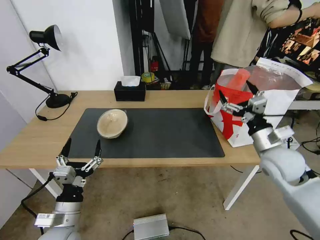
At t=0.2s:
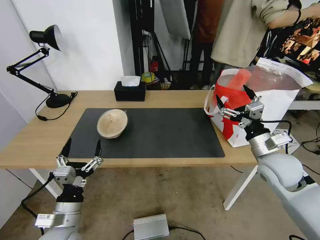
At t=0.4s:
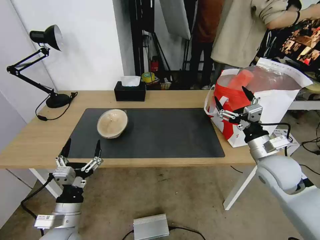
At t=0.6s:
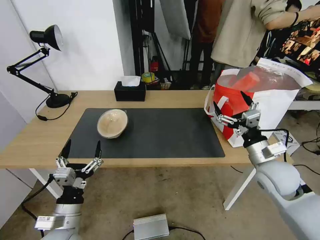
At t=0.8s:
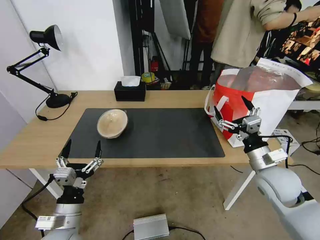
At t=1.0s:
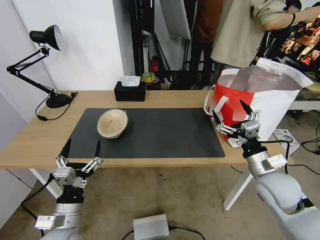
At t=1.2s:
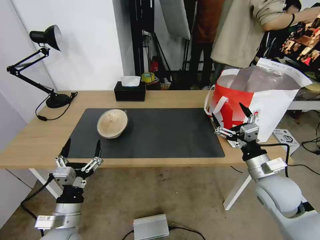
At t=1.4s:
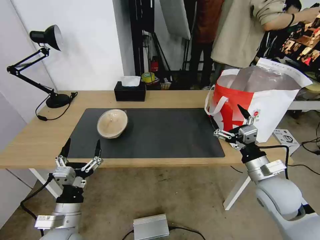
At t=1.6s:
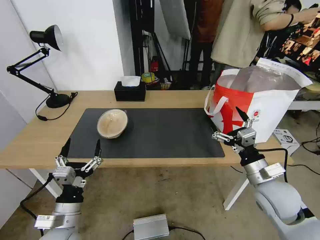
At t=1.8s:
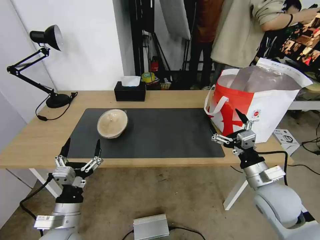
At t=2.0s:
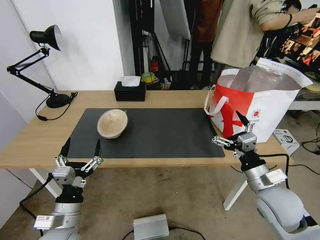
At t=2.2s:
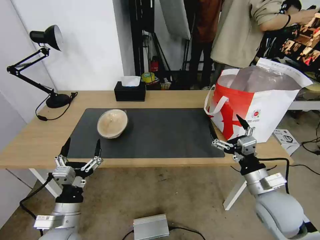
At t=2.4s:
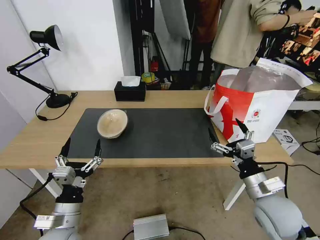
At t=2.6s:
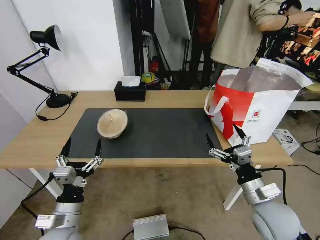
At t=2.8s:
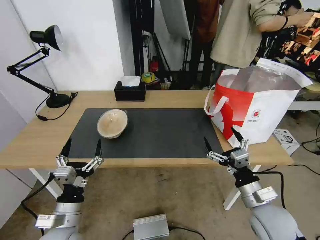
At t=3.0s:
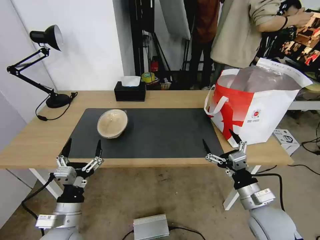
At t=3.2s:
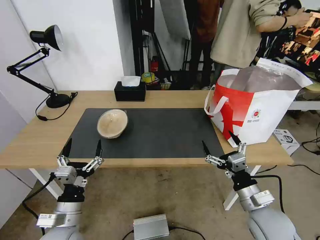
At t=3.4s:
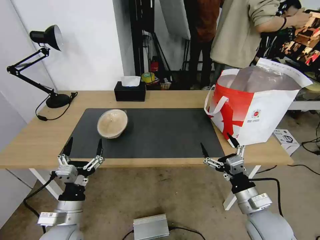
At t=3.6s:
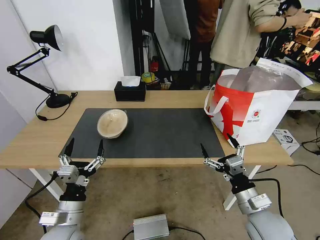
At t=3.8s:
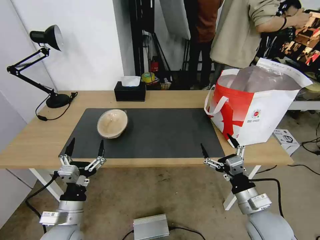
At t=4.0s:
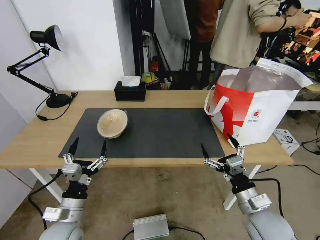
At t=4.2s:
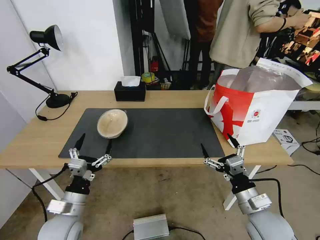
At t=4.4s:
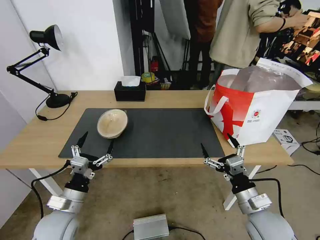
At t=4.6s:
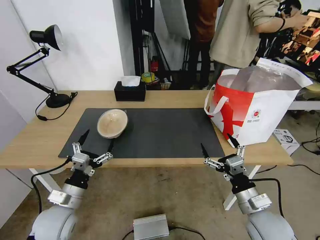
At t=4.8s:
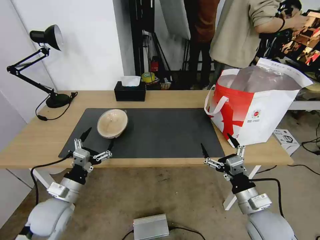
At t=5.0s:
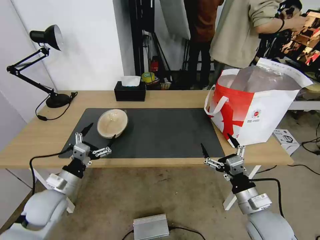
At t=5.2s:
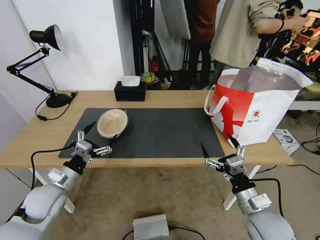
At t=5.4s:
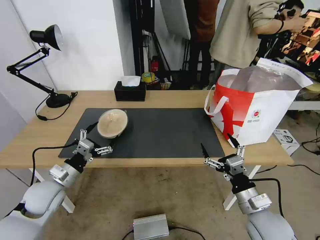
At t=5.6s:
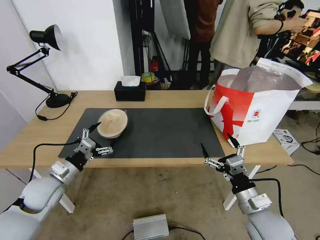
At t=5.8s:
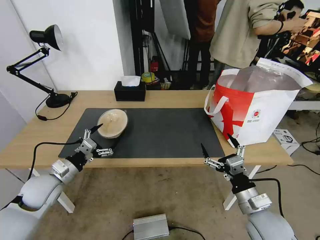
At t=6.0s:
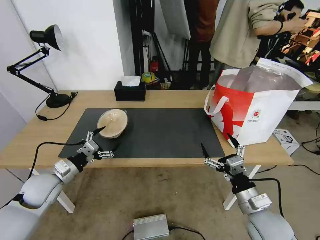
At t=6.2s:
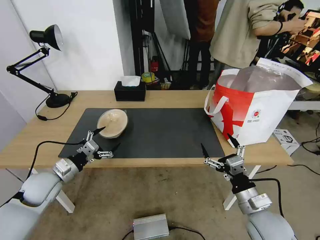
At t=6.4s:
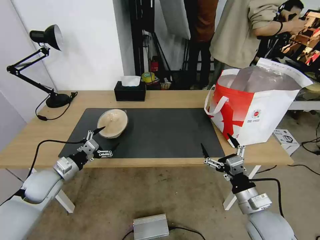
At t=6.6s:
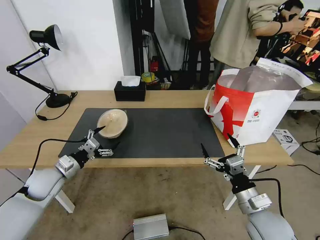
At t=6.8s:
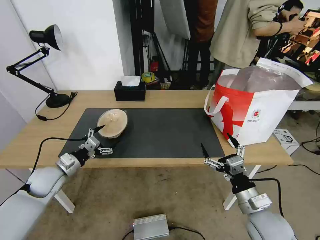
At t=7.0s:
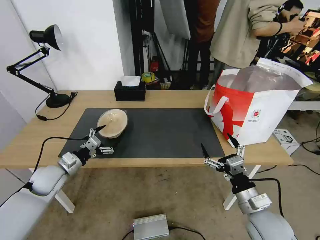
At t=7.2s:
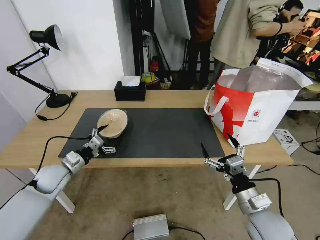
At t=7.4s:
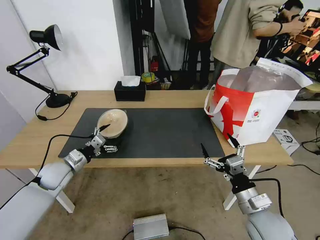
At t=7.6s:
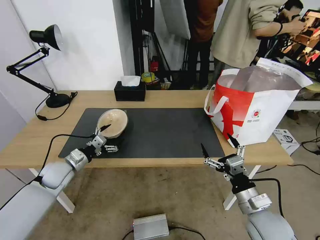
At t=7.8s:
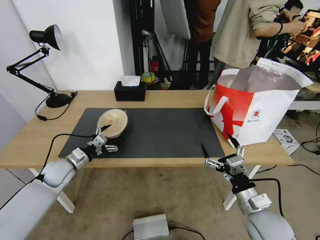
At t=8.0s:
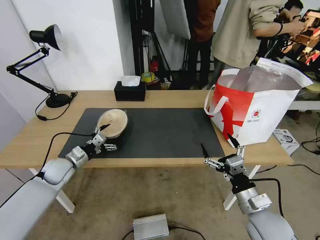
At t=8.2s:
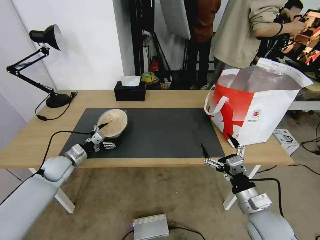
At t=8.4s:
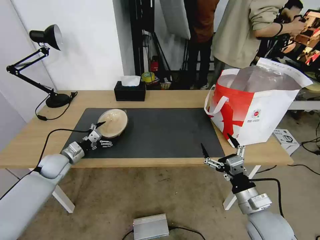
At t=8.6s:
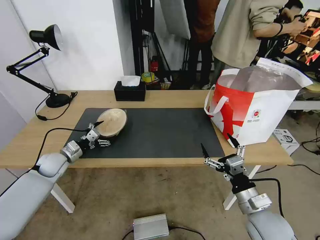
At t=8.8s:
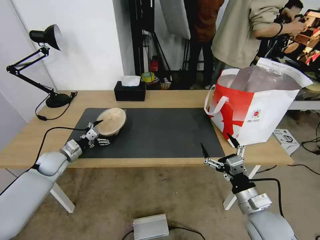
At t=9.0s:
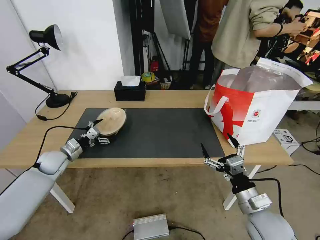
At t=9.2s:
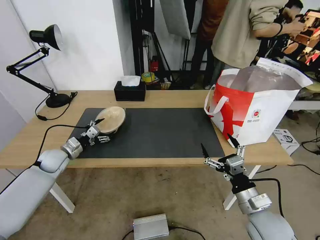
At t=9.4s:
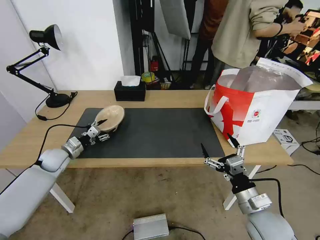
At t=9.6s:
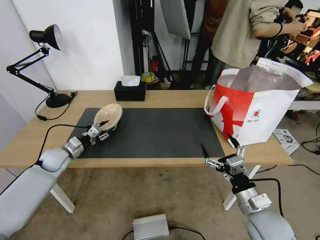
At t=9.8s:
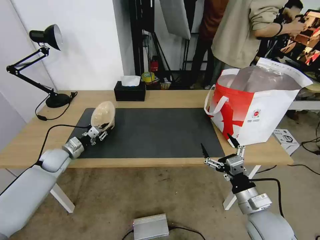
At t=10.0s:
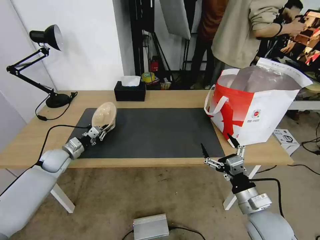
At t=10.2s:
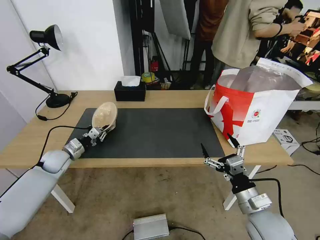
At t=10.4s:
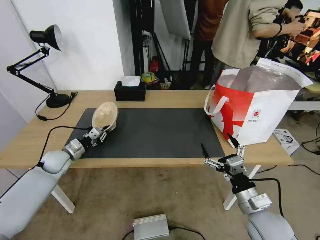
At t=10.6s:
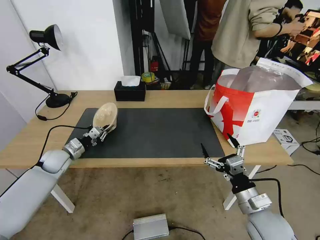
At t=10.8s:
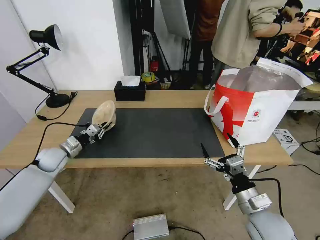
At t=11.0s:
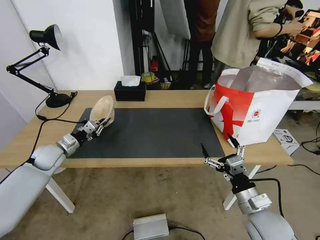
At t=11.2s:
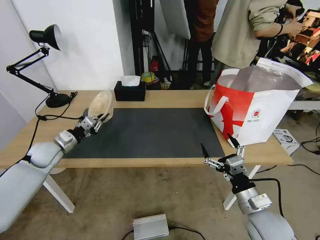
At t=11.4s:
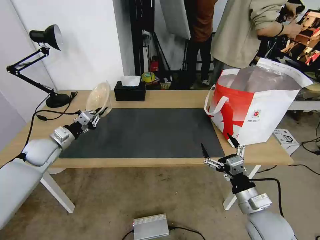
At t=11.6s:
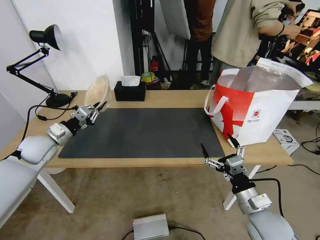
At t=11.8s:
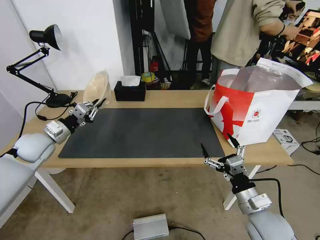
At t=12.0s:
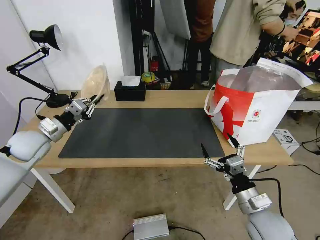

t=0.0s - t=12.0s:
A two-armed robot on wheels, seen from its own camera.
Task of the whole recording: Pick up the trash from the table and place it into the takeout bag.
t=0.0s - t=1.6s: The right gripper heads backward and downward, covering about 10 cm.
t=1.6s - t=3.0s: The right gripper is displaced backward by approximately 5 cm.
t=3.0s - t=4.4s: The grippers stay close to where they were, moving slightly.
t=4.4s - t=6.0s: The left gripper shifts some 15 cm forward and to the left.
t=6.0s - t=7.6s: The left gripper is displaced forward by some 5 cm.
t=7.6s - t=9.0s: The left gripper is displaced forward by roughly 5 cm.
t=9.0s - t=10.4s: The left gripper closes up.
t=10.4s - t=12.0s: The left gripper heads upward, covering roughly 15 cm.

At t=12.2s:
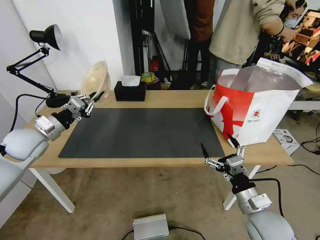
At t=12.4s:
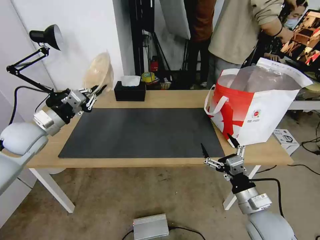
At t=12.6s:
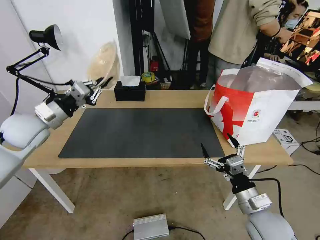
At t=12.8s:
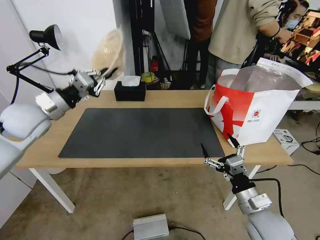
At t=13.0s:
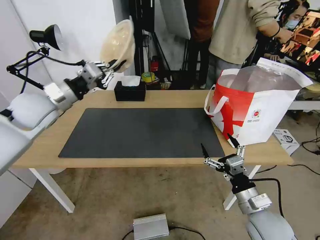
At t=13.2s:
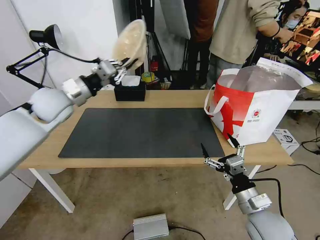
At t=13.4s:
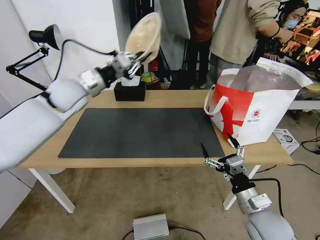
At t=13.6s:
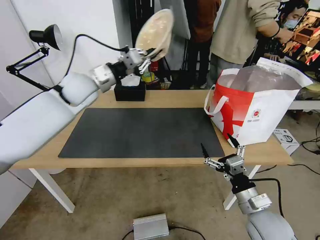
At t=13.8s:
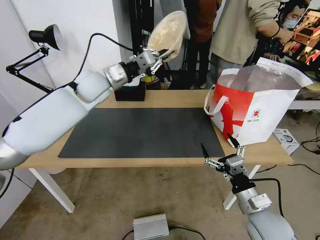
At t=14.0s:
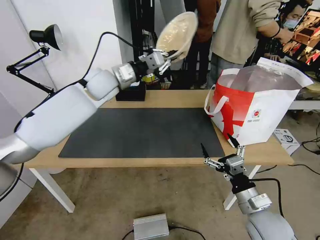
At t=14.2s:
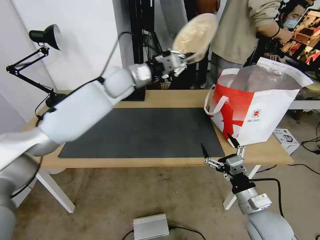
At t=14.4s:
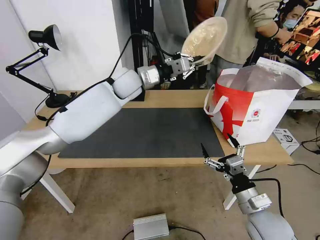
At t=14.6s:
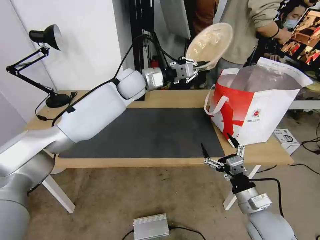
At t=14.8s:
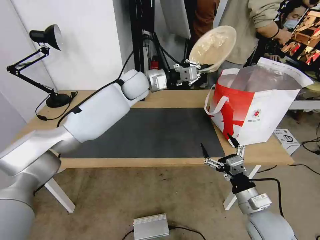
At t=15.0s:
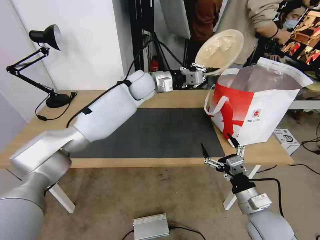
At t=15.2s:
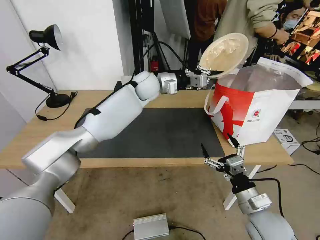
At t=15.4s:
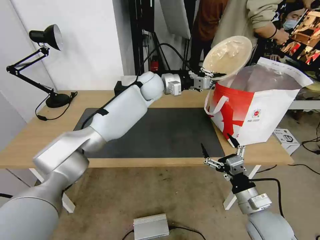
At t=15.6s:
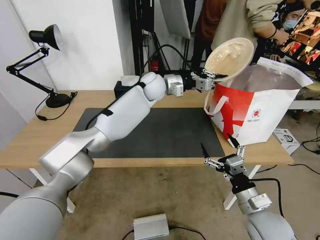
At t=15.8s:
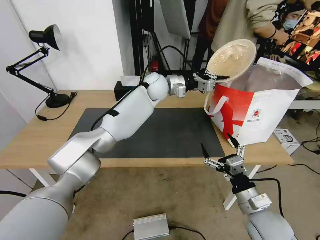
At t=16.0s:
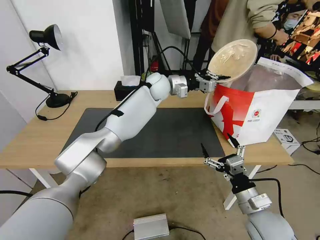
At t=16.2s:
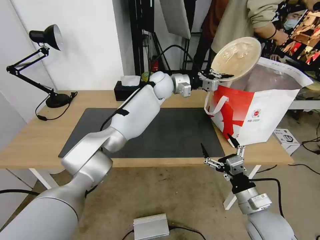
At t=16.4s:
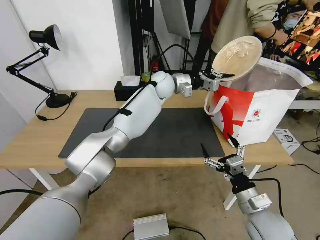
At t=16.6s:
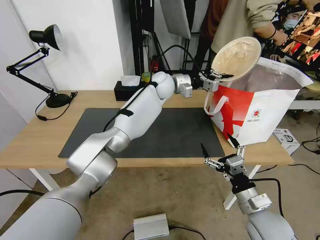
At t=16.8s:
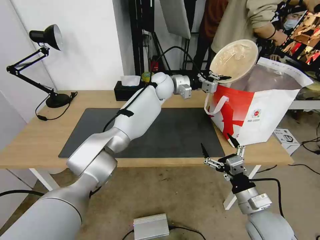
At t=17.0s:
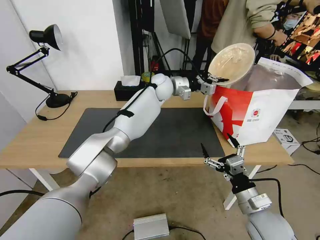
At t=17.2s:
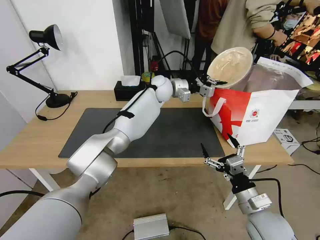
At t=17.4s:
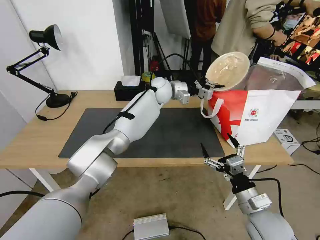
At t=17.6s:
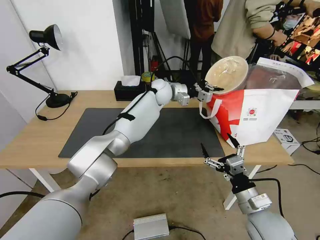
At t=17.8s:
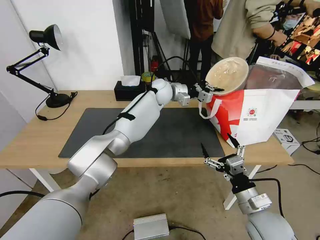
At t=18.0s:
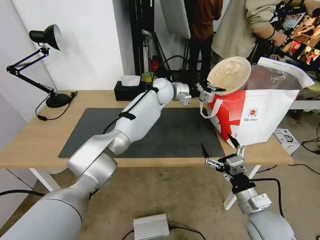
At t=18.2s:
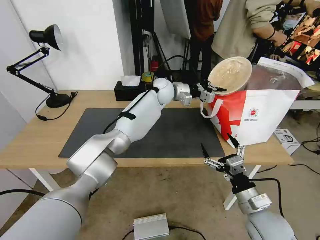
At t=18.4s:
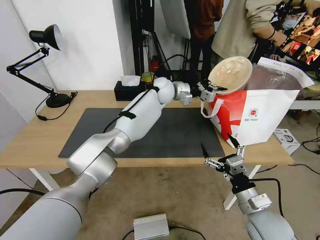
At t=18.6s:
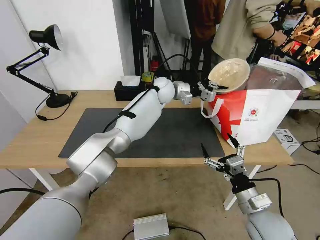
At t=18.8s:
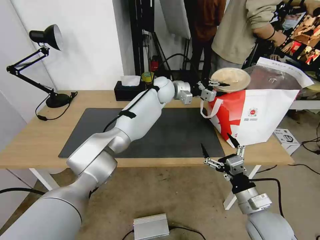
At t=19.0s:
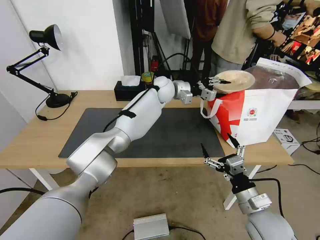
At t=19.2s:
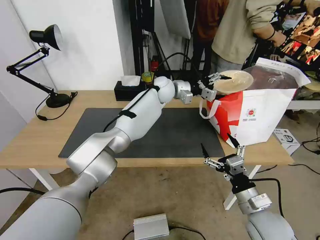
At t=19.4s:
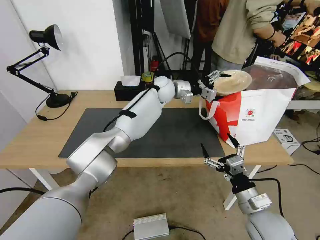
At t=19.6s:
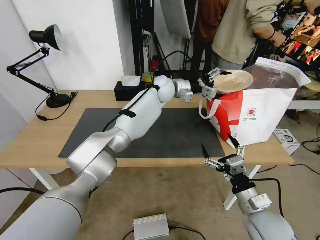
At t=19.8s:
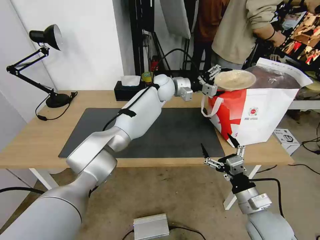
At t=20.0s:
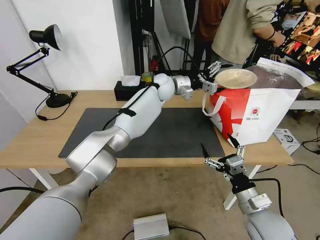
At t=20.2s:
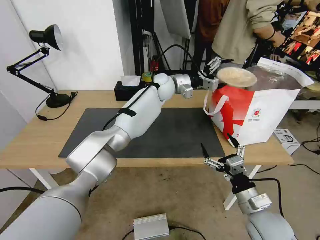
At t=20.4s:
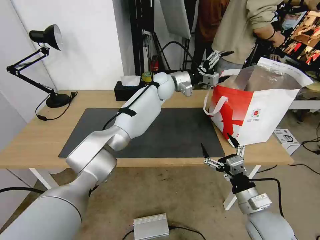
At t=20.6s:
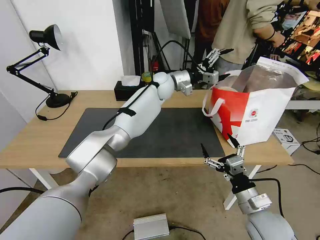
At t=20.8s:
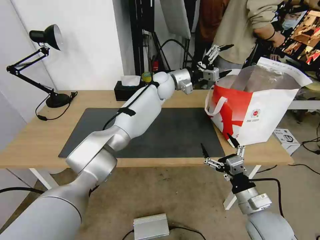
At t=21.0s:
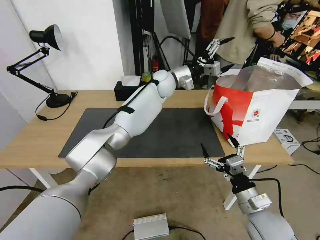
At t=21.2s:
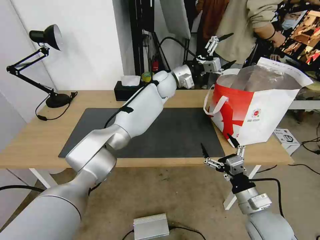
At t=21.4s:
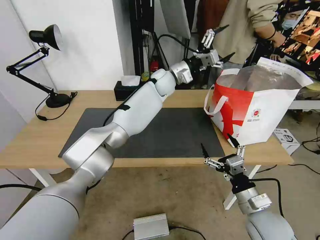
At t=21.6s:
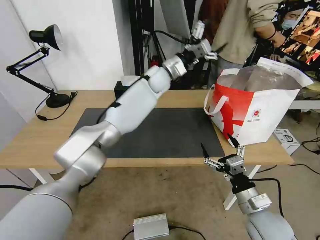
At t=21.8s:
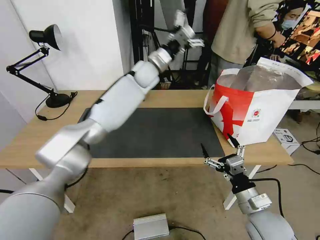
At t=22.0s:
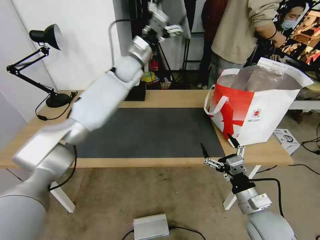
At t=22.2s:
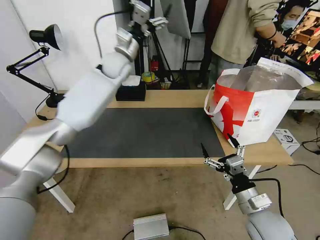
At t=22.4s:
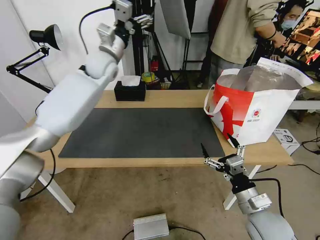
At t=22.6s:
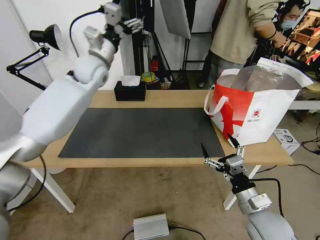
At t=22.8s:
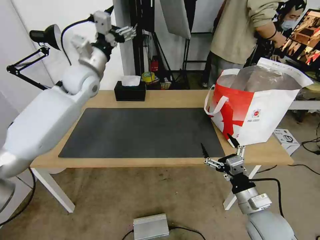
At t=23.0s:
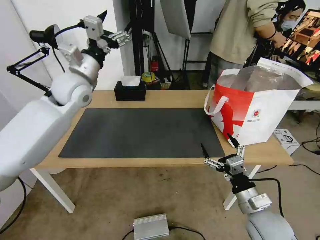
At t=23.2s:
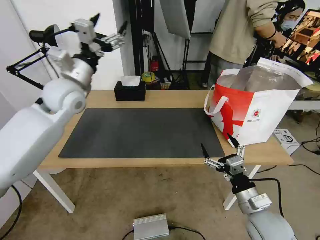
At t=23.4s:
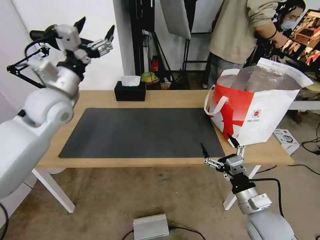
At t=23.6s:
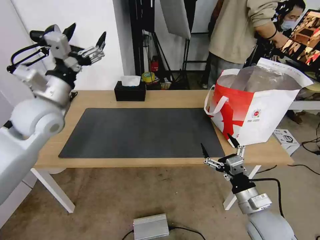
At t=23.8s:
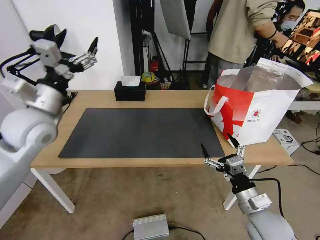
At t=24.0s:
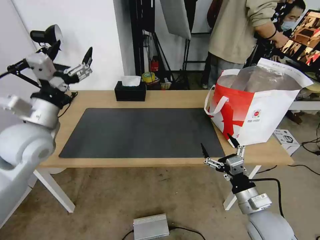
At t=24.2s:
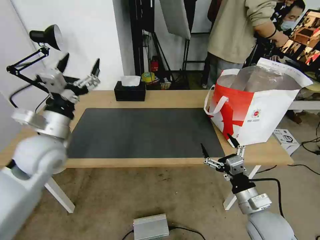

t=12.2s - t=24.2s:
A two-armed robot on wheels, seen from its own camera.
Task of the whole recording: Pick up the trash from the table and place it into the takeout bag.
t=12.2s - t=13.8s: The left gripper shifts approximately 25 cm to the right, forward and upward.
t=13.8s - t=15.2s: The left gripper shifts some 15 cm to the right.
t=15.2s - t=16.6s: The left gripper heads to the right, covering some 5 cm.
t=16.6s - t=18.2s: The grippers stay close to where they were, moving slightly.
t=18.2s - t=19.8s: The left gripper opens.
t=21.2s - t=22.6s: The left gripper heads to the left, covering about 25 cm.
t=22.6s - t=24.2s: The left gripper goes approximately 25 cm backward and downward.
